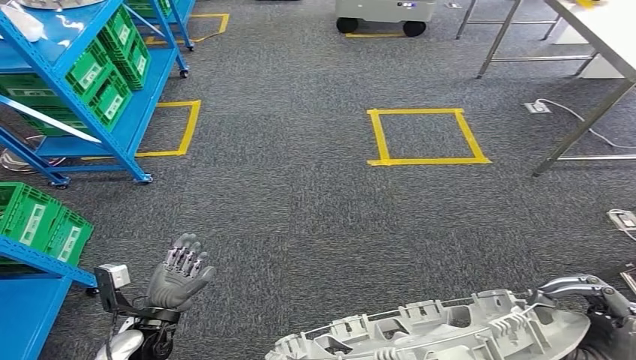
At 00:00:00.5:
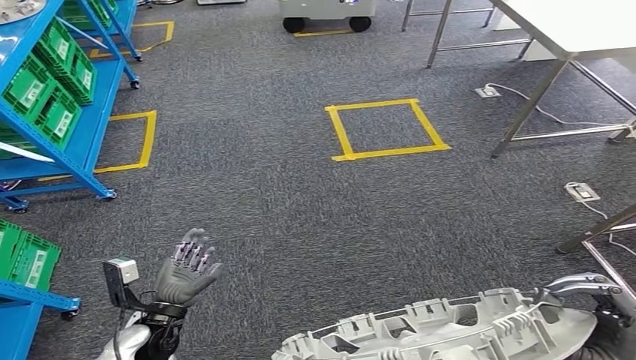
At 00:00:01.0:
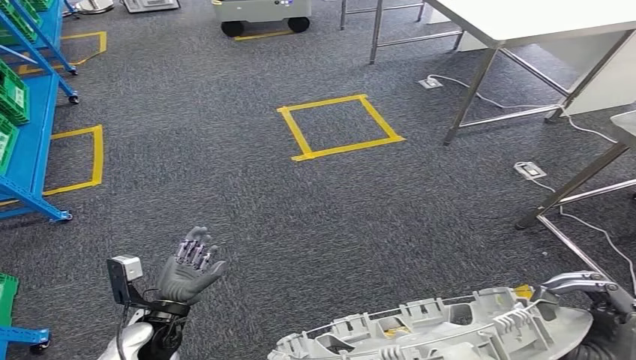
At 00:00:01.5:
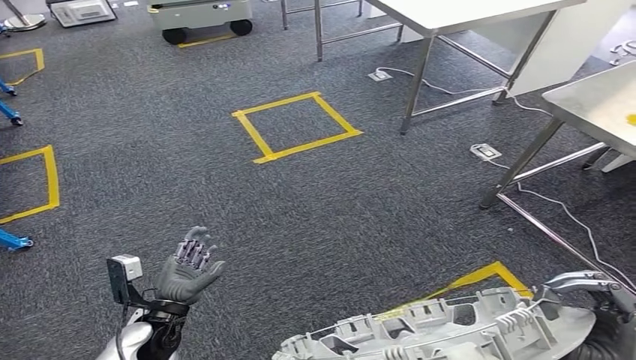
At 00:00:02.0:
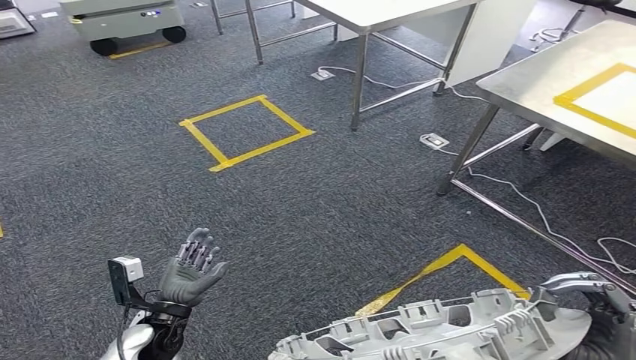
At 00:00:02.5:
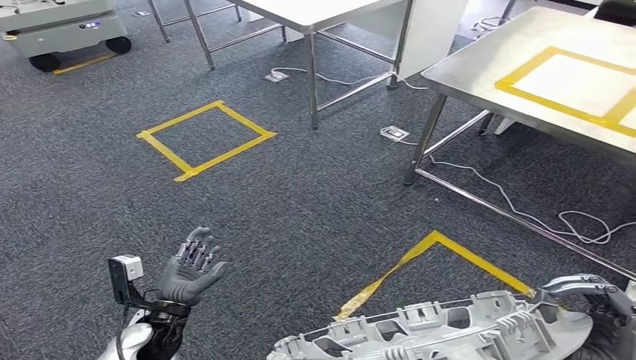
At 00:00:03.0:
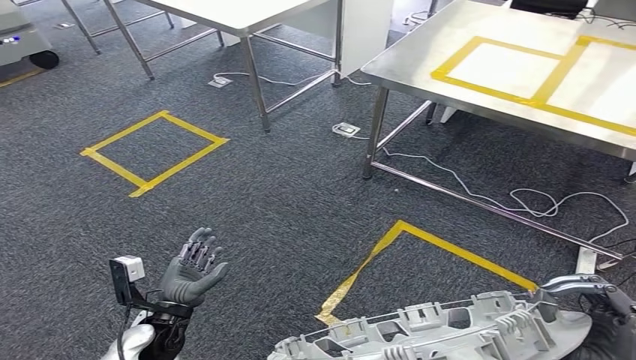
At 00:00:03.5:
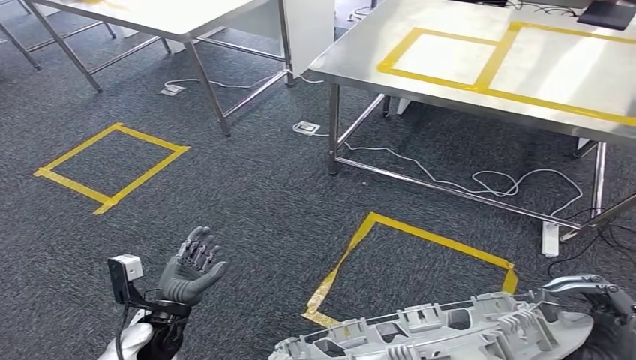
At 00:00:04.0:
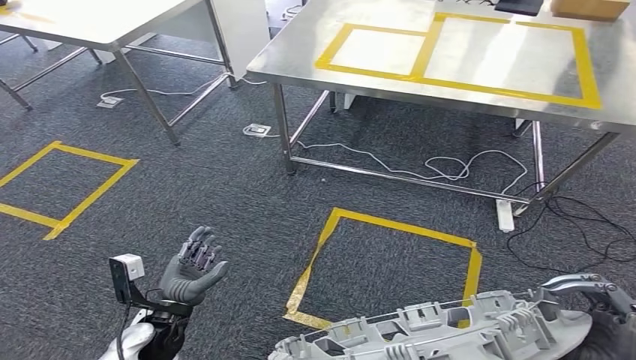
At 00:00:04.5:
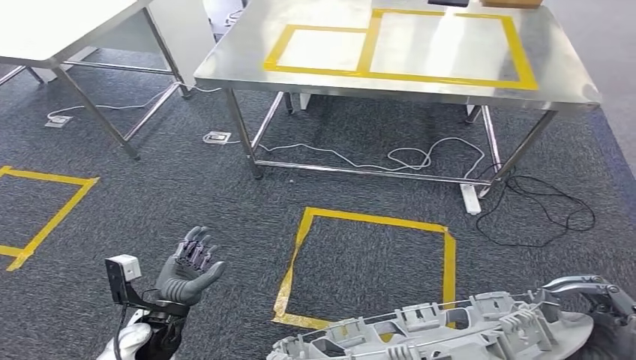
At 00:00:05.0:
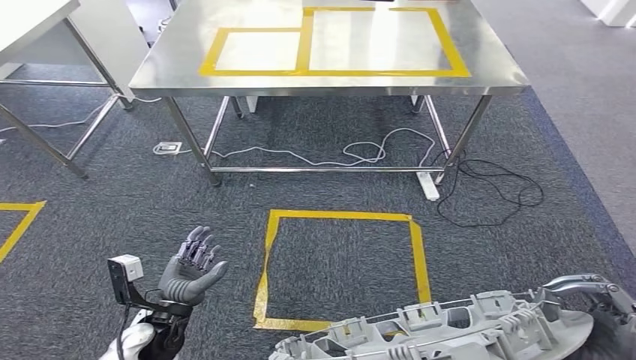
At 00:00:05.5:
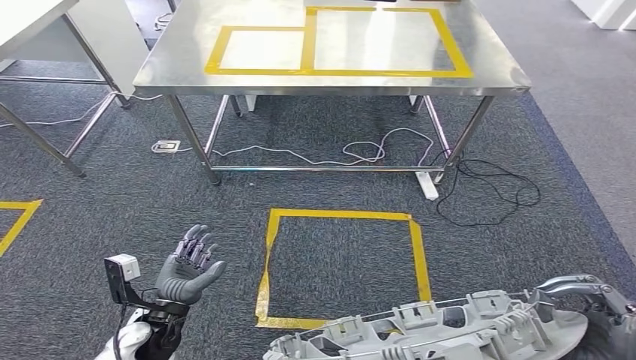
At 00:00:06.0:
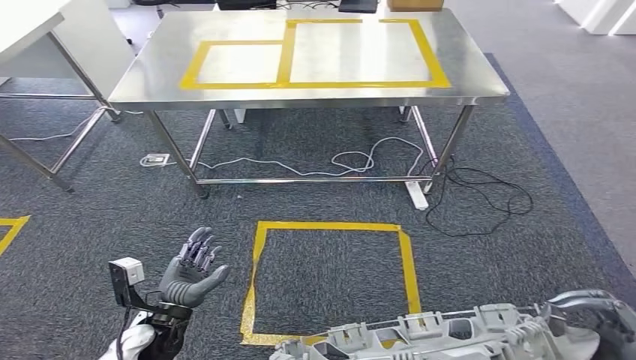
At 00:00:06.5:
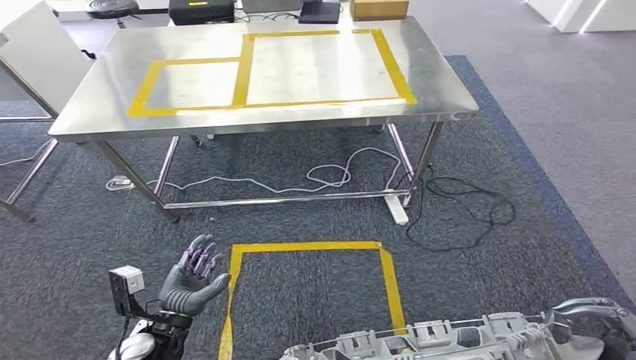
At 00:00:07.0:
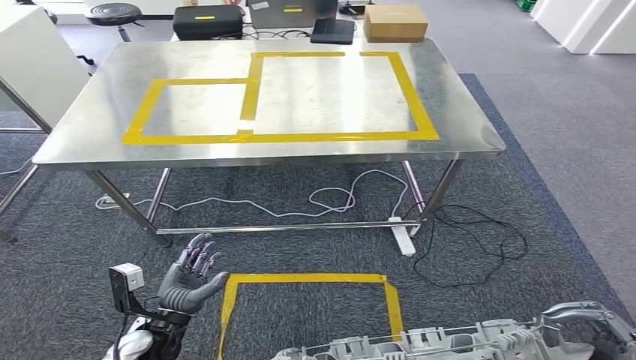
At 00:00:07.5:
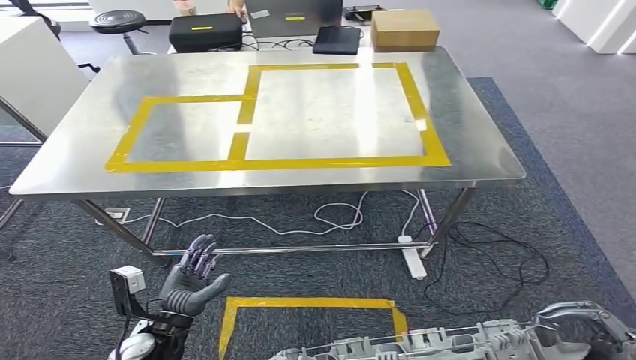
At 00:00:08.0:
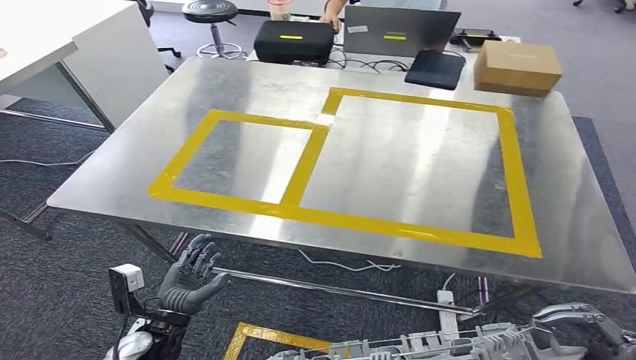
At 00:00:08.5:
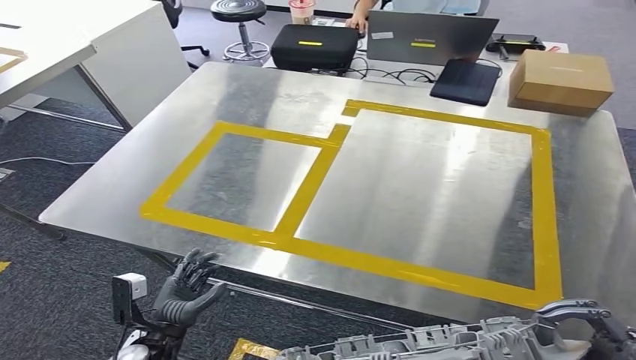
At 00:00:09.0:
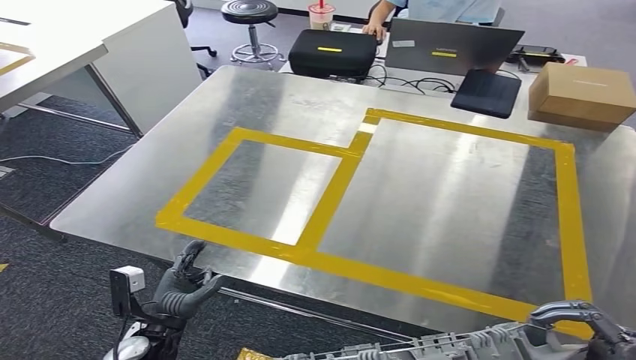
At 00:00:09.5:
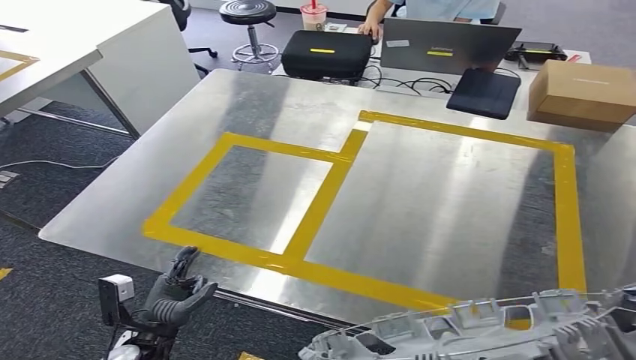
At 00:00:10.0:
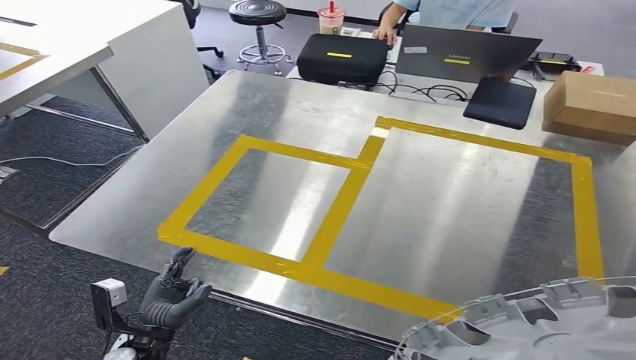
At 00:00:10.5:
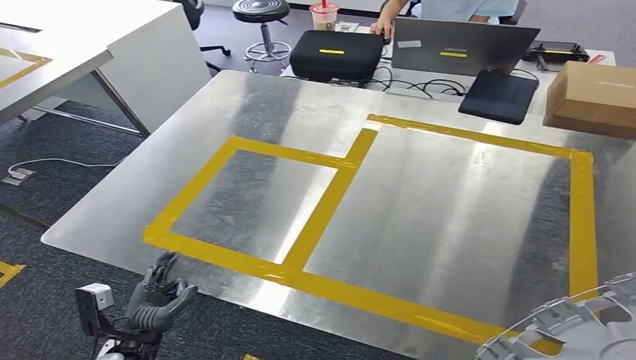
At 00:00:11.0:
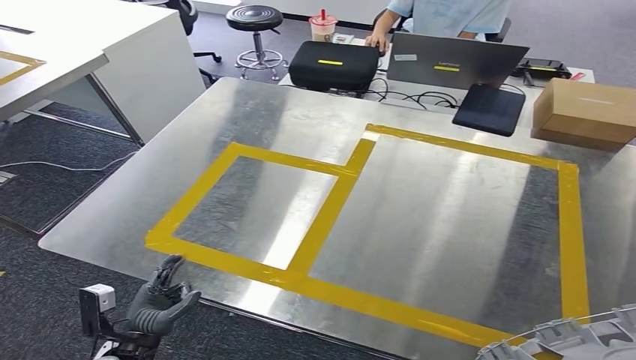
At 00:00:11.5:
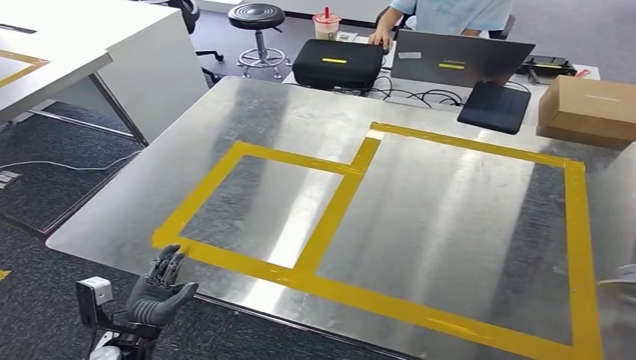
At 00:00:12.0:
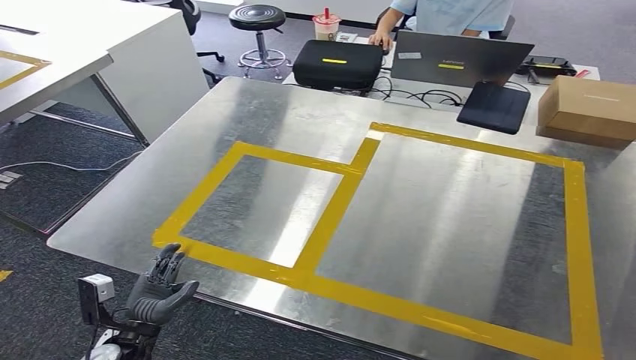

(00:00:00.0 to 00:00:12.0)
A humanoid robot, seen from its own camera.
Step, 00:00:00.0 - 00:00:09.5: Move the small component to the workbench.

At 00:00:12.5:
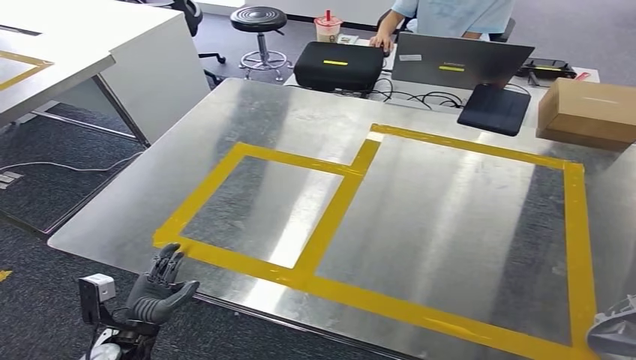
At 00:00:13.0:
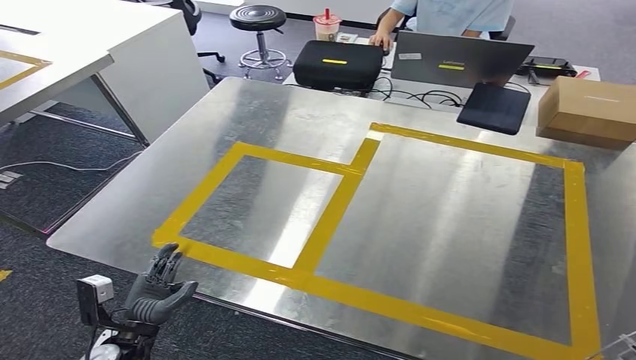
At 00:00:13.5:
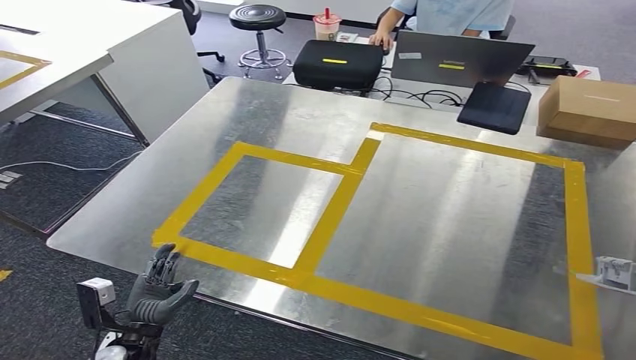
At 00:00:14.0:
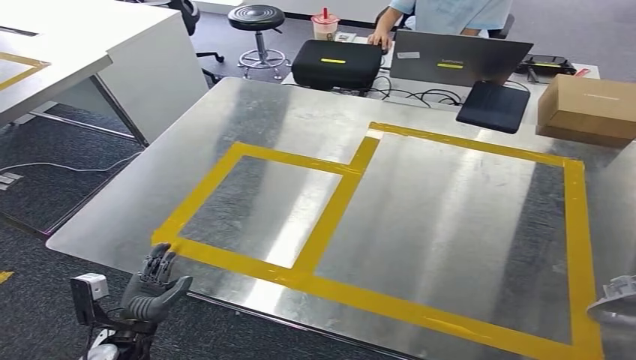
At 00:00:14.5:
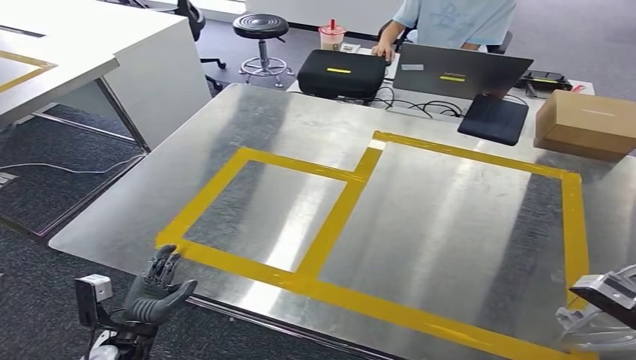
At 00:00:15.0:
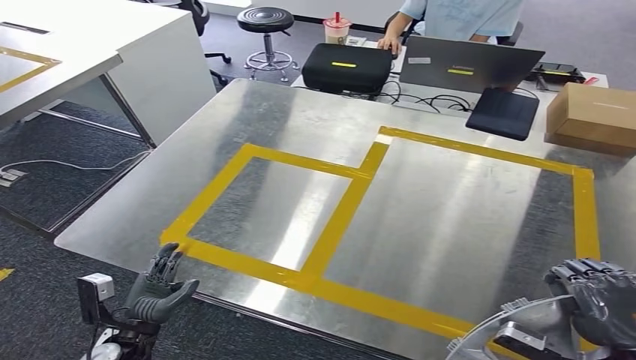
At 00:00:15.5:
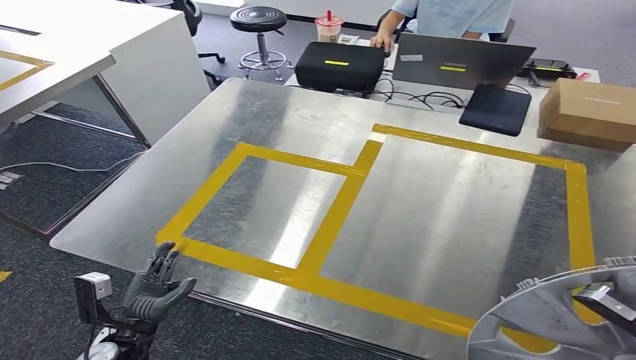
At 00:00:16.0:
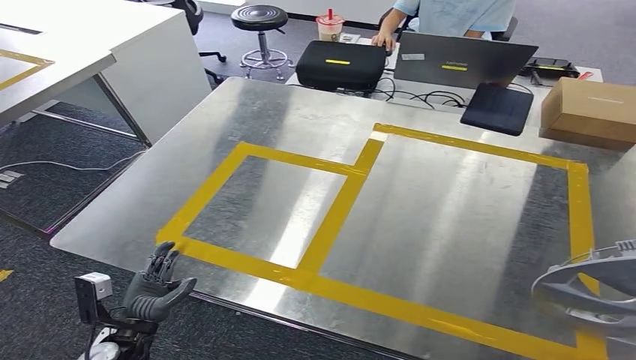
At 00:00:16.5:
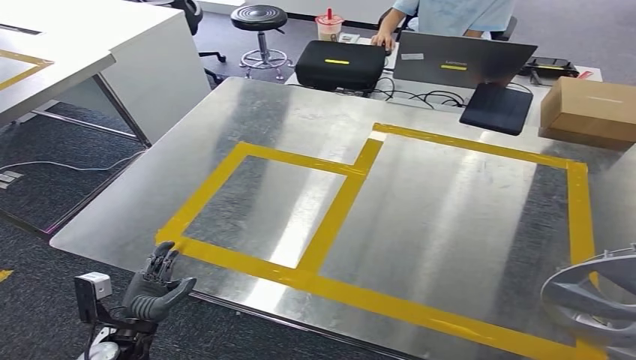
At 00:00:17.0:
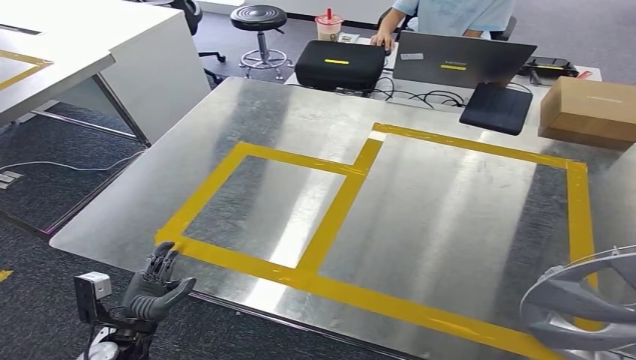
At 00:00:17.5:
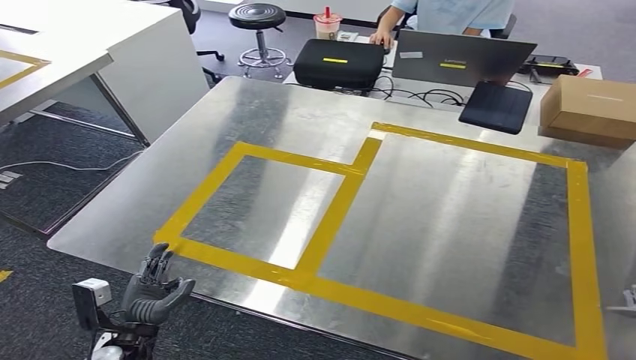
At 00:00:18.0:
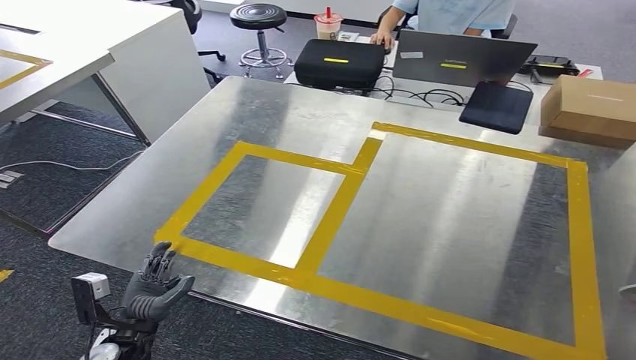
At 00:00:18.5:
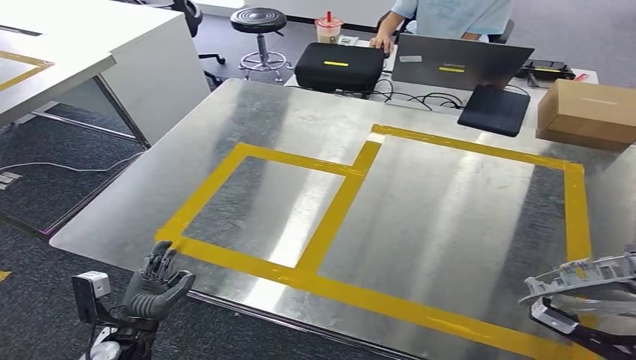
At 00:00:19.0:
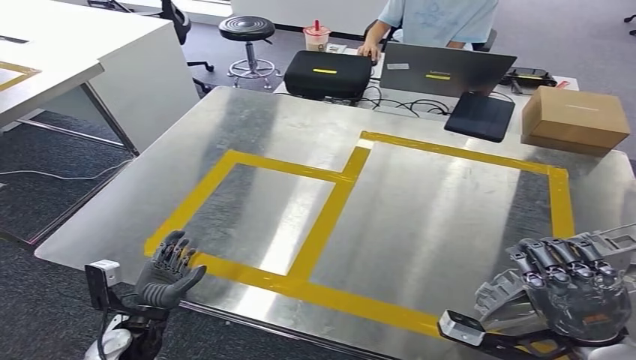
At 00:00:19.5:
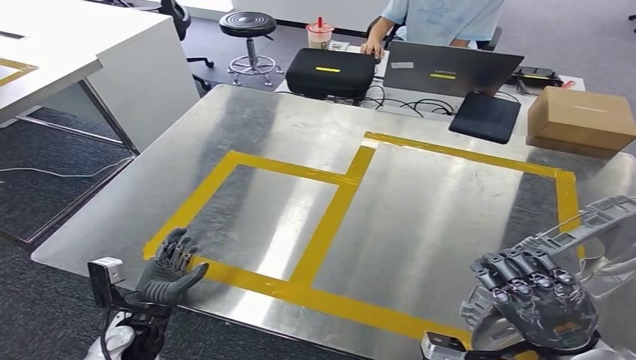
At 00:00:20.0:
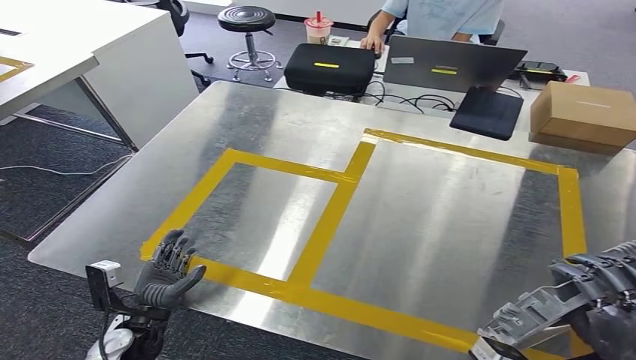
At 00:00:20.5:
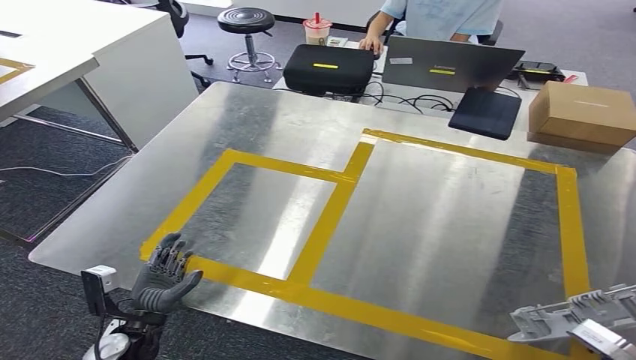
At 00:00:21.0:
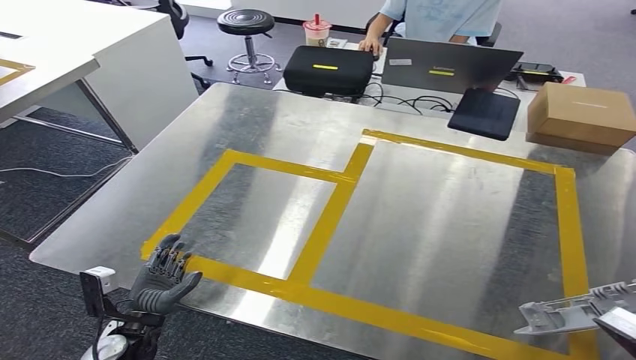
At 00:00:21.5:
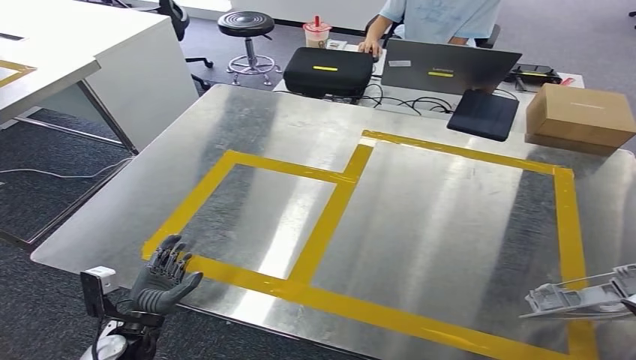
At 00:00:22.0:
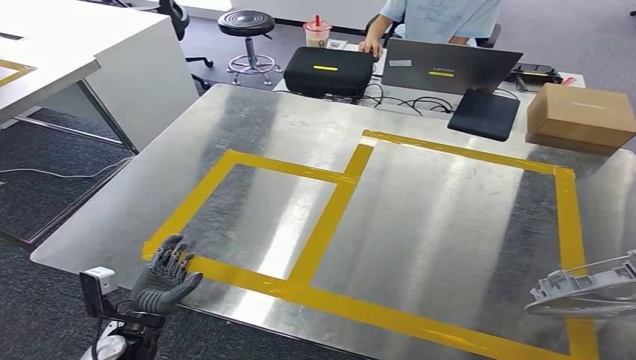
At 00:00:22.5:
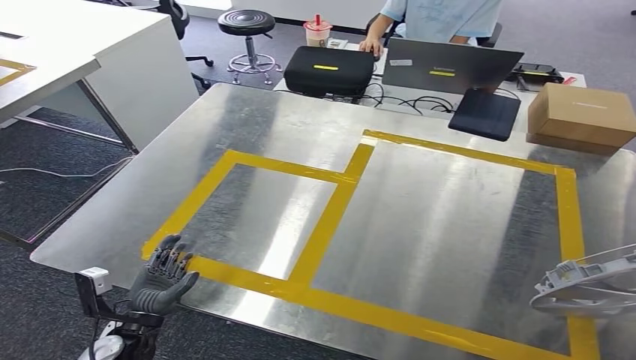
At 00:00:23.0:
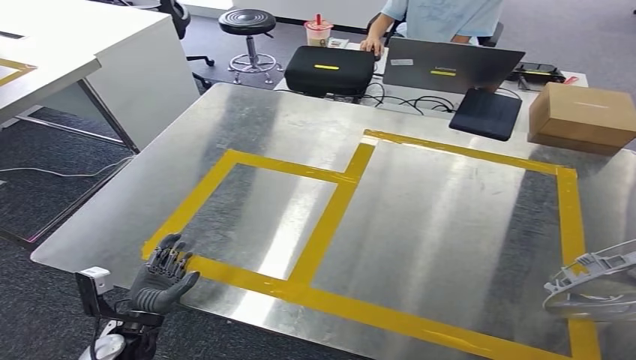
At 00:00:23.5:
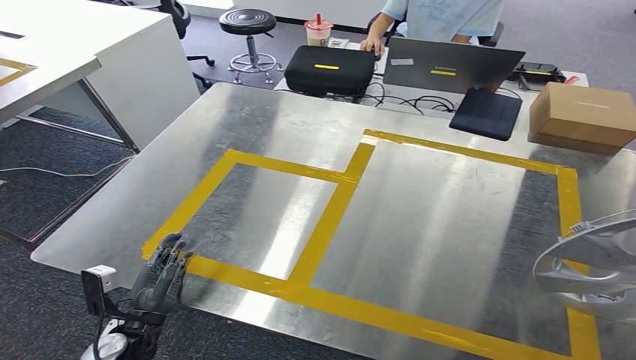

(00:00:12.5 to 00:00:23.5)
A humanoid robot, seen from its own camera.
00:00:20.0 - 00:00:21.5: The right hand is displaced to the right by approximately 10 cm.
00:00:21.5 - 00:00:23.5: The right hand travels to the right and forward by some 10 cm.
